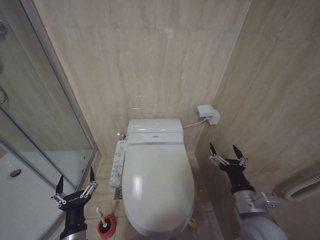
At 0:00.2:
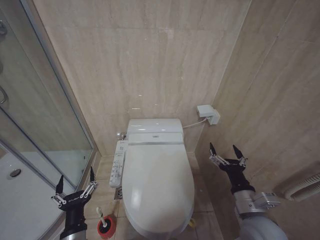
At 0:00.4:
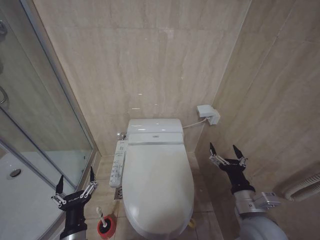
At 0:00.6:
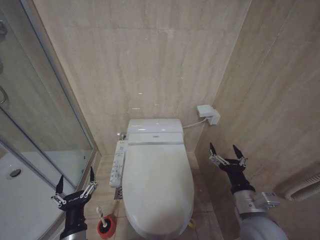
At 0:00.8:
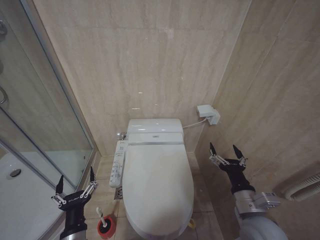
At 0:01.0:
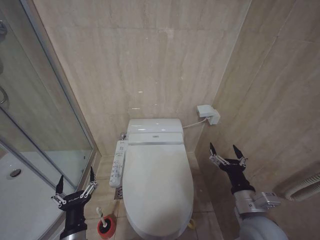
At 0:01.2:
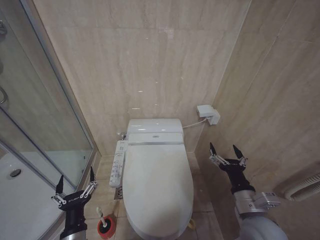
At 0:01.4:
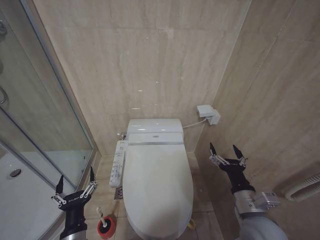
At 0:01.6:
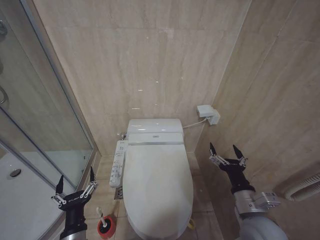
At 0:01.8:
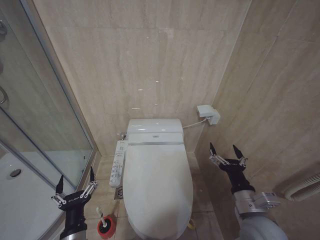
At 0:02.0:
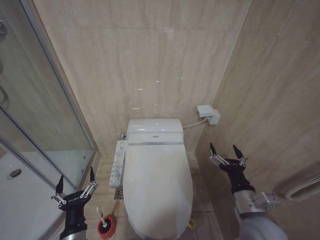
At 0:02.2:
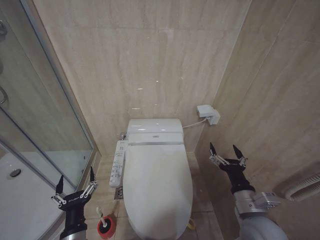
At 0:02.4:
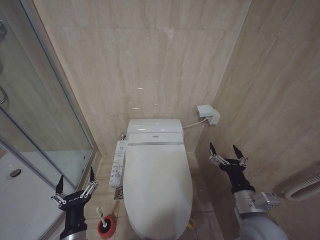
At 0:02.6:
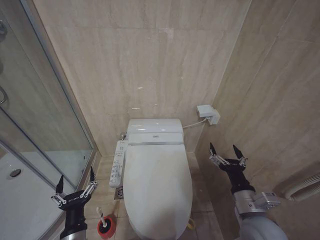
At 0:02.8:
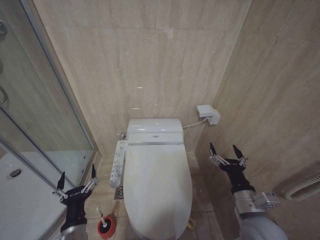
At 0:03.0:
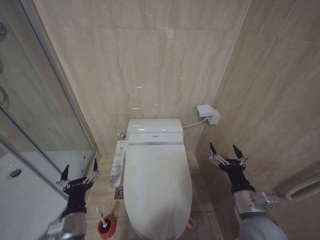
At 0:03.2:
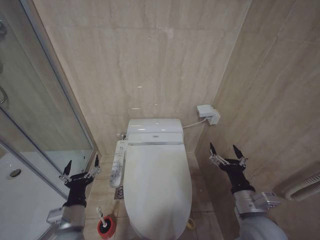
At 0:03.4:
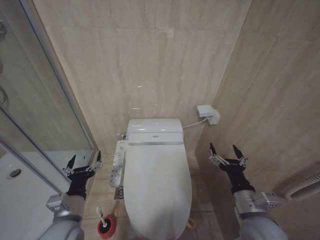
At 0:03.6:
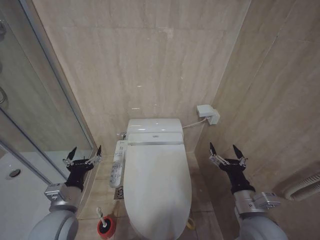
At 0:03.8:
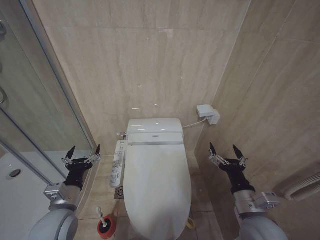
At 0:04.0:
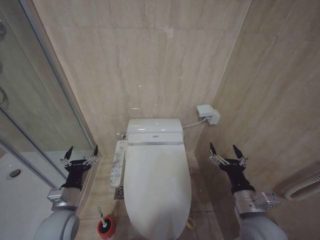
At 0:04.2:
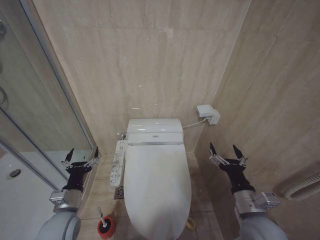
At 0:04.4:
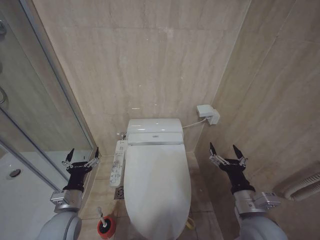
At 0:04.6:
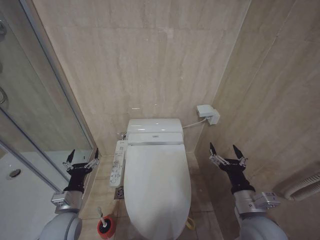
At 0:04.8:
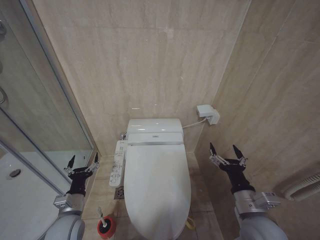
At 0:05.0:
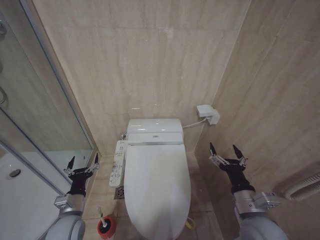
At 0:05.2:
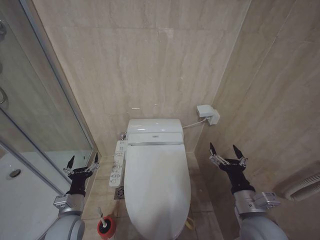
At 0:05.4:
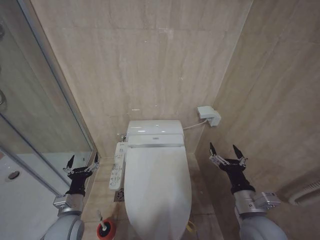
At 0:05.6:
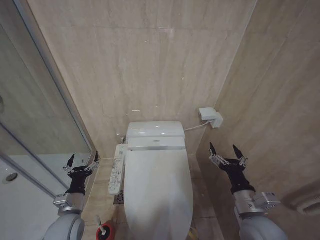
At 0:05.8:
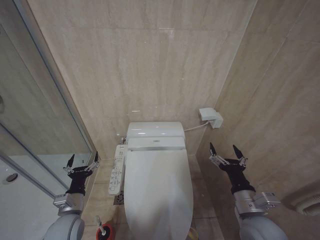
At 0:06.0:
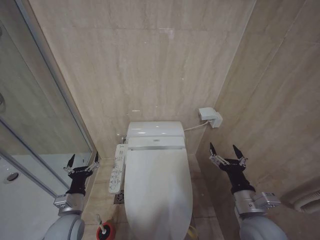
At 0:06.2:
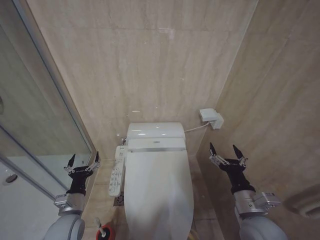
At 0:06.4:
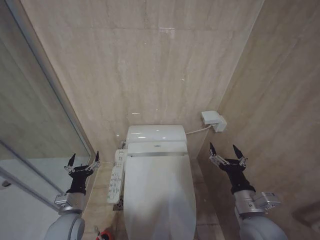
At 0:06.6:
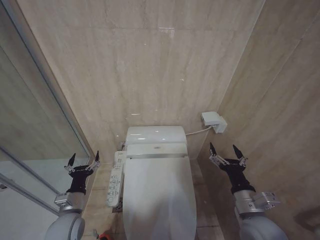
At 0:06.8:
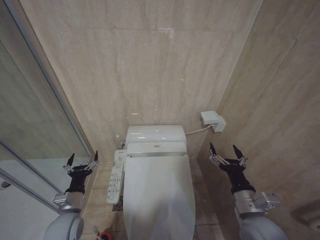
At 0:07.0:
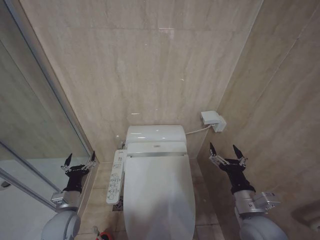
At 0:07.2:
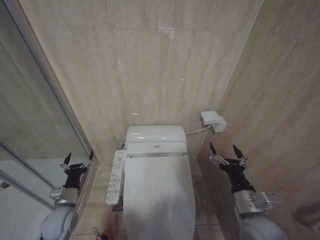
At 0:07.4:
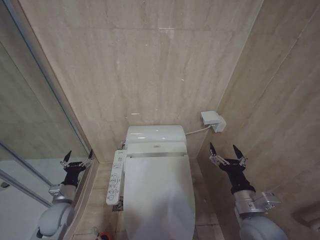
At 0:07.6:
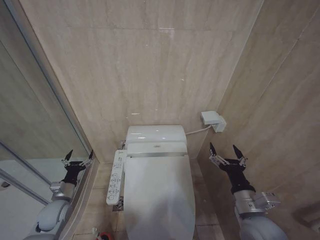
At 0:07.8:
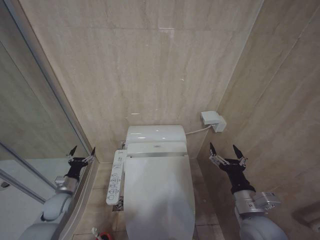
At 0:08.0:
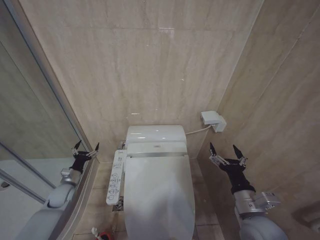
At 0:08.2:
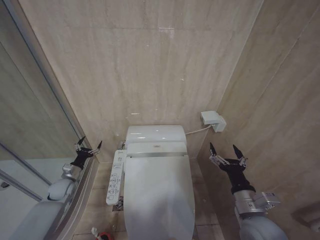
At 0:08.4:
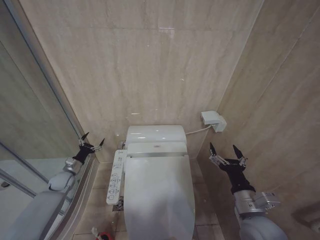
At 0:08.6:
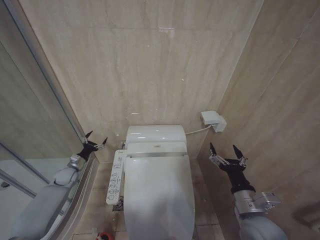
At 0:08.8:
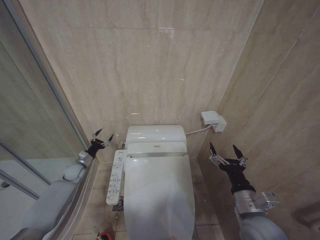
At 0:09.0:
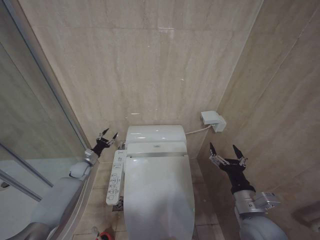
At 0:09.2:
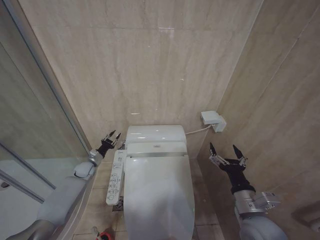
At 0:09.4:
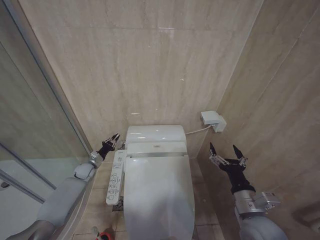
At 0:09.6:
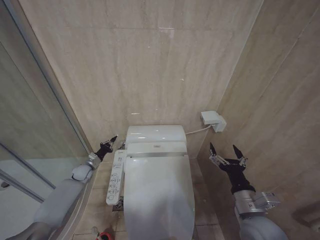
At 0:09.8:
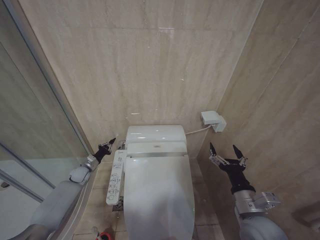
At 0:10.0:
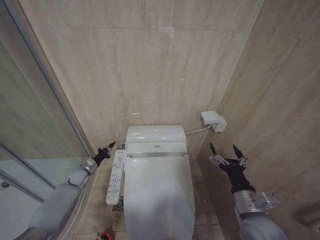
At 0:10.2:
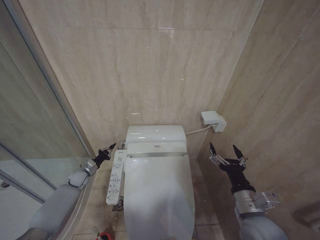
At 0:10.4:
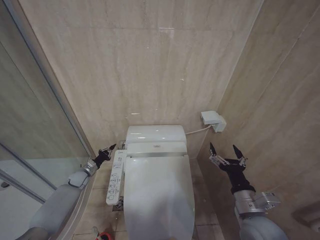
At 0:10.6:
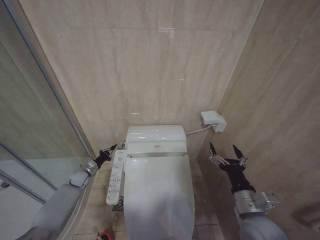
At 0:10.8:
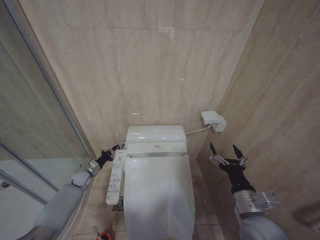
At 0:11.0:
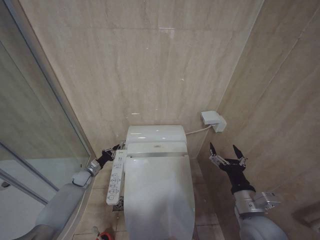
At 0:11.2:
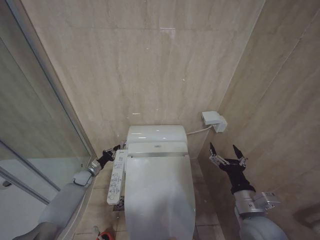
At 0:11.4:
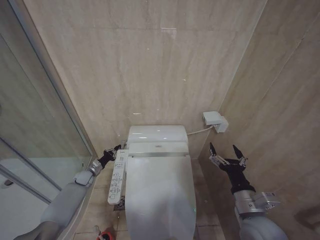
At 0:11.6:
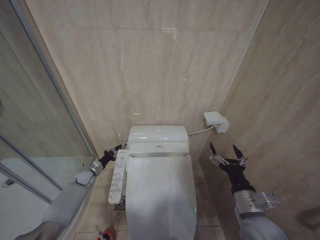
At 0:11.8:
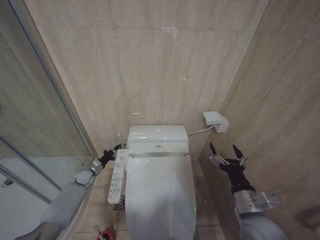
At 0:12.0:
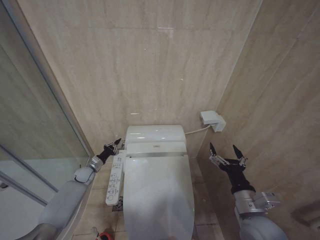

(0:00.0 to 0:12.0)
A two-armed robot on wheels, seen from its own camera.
Task of the whole recording: Open the toilet lid, clean the toilet bowl with a toilet brush, close the toilet lid, and flush.
0:00.0 - 0:01.6: Both grippers stay about where they are.
0:01.6 - 0:03.0: The grippers make only small movements.
0:03.0 - 0:04.4: The left gripper travels forward and to the left by roughly 10 cm.
0:04.4 - 0:06.0: The grippers make only small movements.
0:06.0 - 0:07.6: The left gripper moves to the left and forward, approximately 10 cm.
0:07.6 - 0:09.0: The left gripper is displaced forward by about 20 cm.
0:09.0 - 0:10.4: The left gripper ends up approximately 5 cm from where it was, and closes up.
0:10.4 - 0:12.0: There are only small adjustments of the grippers.

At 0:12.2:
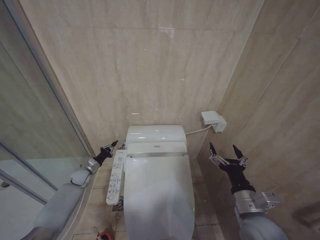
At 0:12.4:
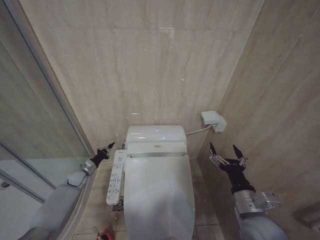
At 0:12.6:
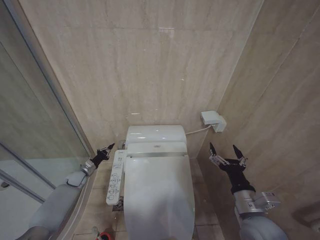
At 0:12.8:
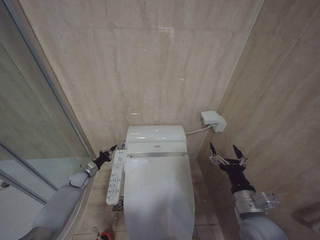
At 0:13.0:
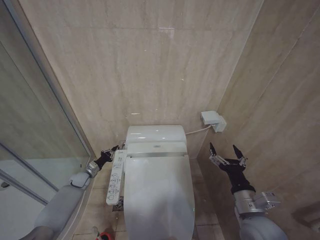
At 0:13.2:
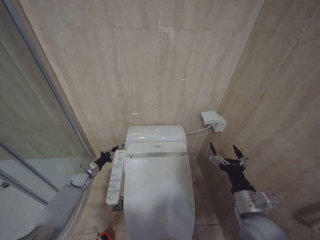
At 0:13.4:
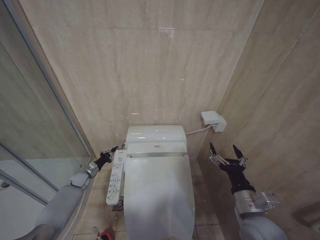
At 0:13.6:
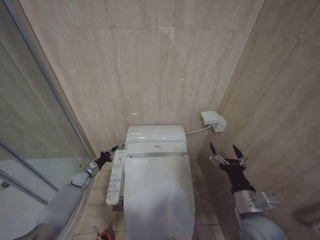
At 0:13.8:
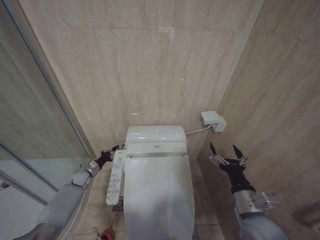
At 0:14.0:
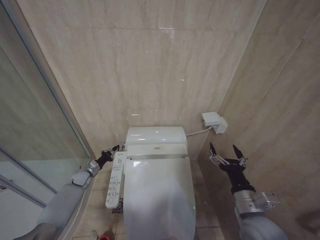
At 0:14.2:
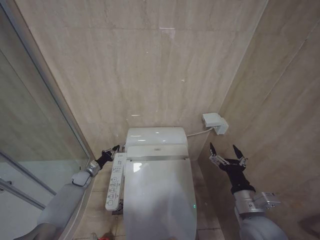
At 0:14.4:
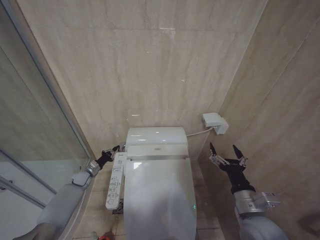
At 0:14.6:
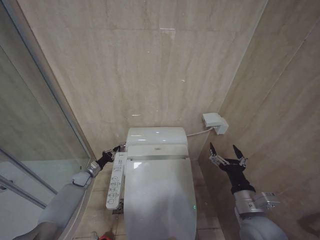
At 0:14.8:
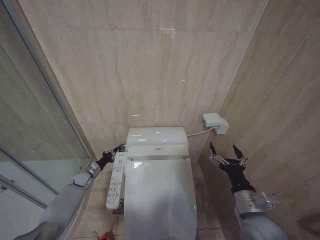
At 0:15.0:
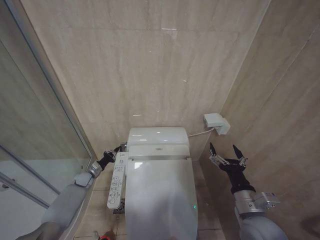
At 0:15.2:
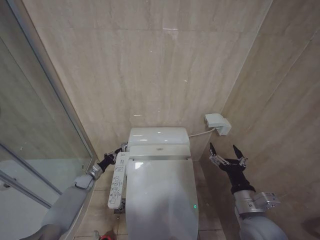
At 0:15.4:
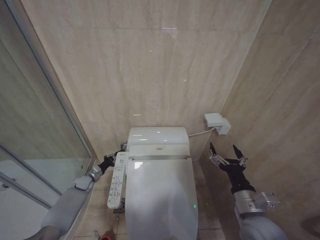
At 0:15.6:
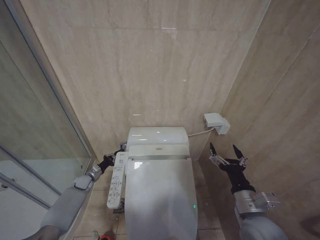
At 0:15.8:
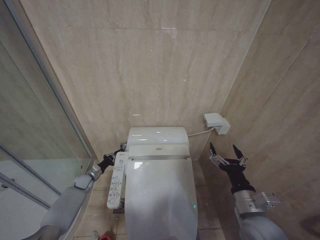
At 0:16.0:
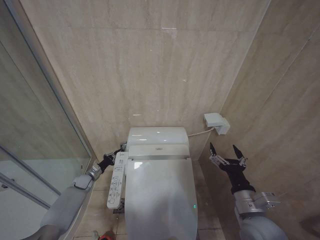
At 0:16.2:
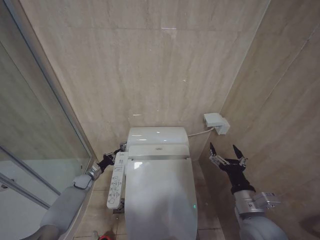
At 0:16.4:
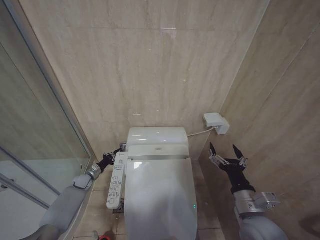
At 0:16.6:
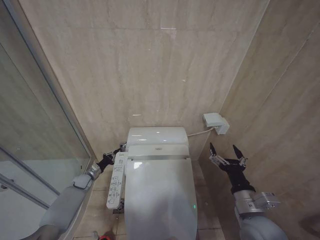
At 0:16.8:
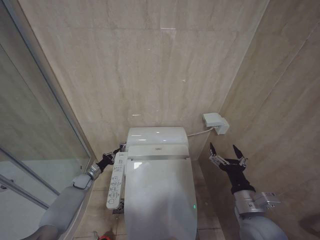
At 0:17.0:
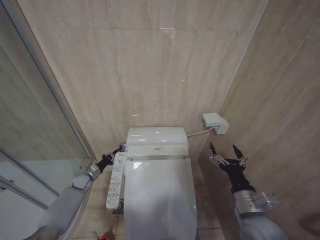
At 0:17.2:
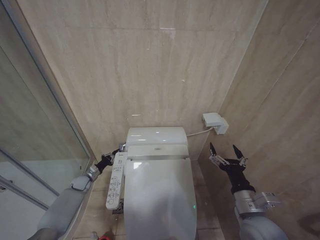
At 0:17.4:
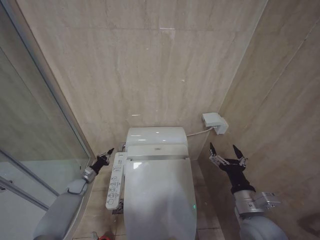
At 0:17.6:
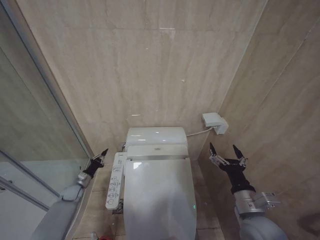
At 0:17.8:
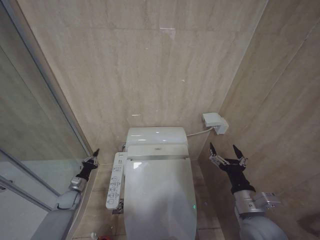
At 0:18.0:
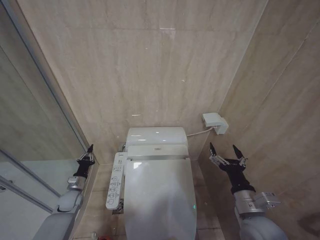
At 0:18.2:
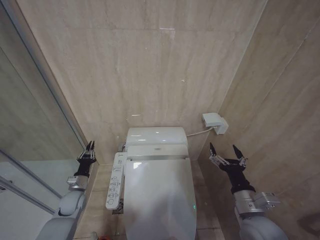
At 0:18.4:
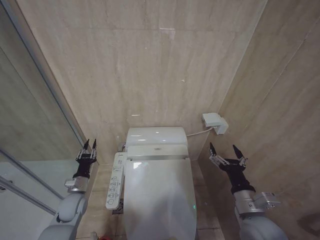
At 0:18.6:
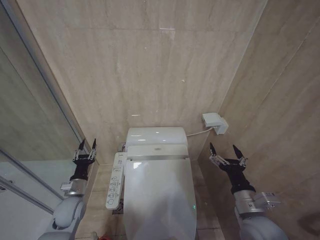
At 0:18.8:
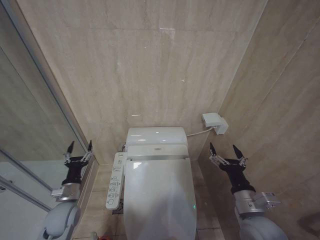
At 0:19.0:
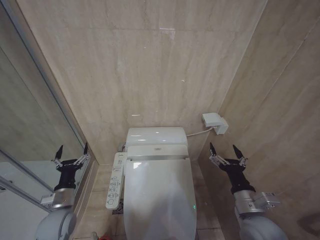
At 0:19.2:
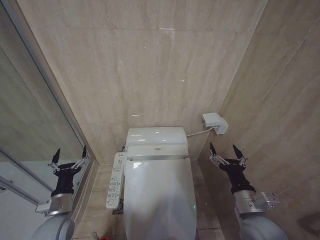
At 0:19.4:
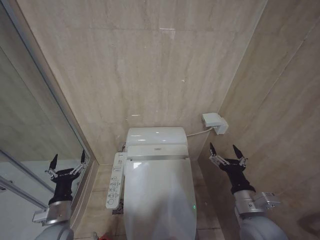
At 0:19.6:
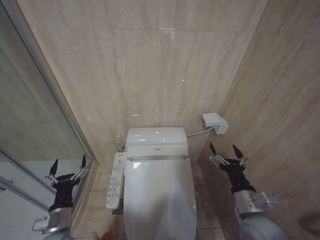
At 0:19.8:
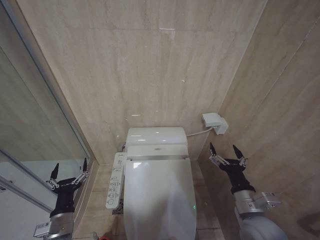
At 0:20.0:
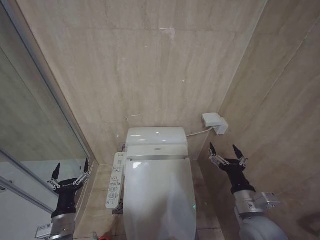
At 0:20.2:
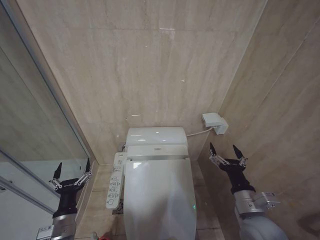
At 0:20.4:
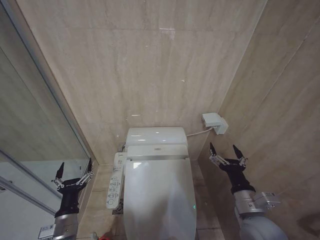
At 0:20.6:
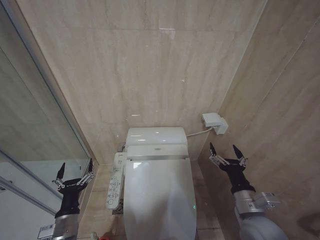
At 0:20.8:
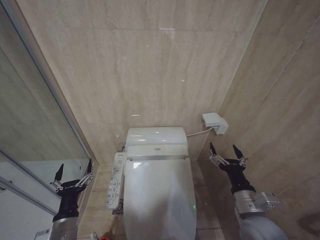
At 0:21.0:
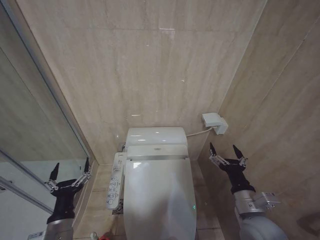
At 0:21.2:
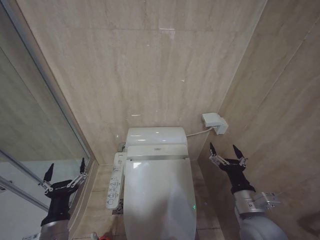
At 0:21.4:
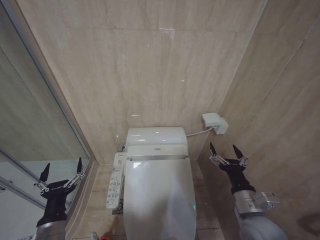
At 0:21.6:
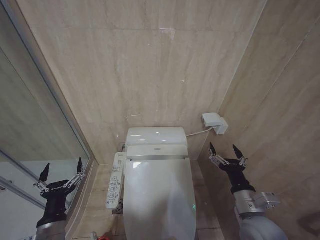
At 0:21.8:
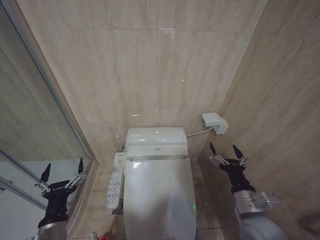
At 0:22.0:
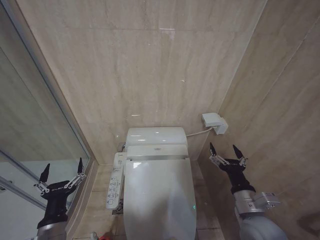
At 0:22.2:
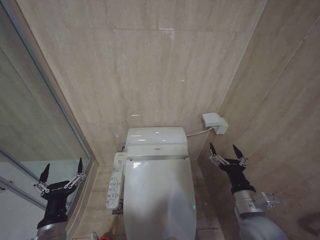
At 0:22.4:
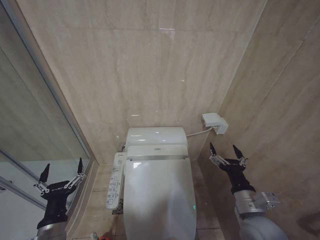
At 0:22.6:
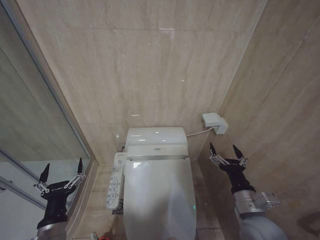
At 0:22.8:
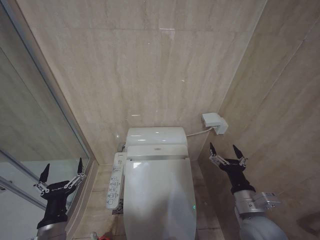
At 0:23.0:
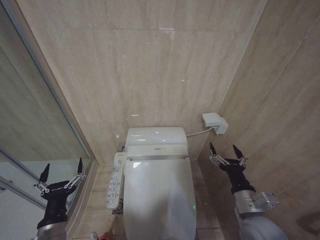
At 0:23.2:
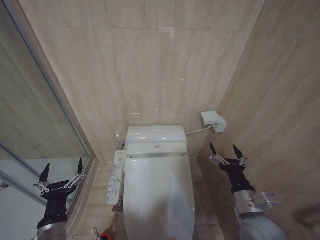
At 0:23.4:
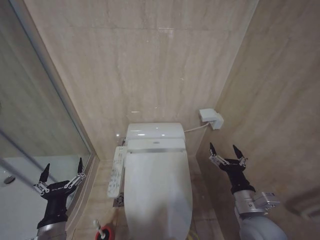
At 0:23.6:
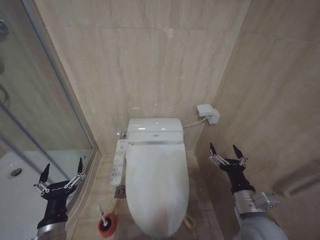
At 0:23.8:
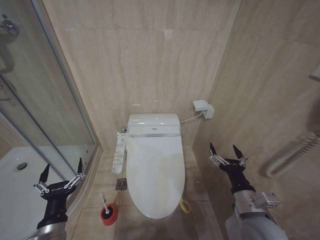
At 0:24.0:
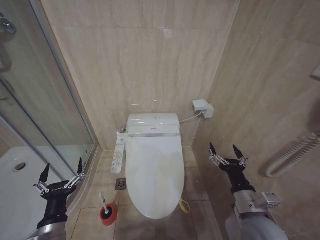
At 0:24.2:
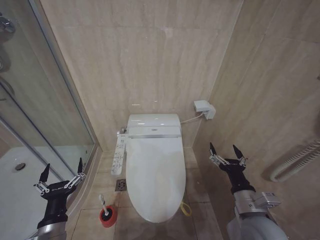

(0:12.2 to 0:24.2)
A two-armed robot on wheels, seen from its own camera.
Task of the whole recording: Open the toilet lid, clean the toilet bowl with a toilet brush, close the toilet lid, and flush.
0:13.8 - 0:15.2: The grippers stay close to where they were, moving slightly.
0:15.2 - 0:16.6: Neither gripper changes place.
0:16.6 - 0:18.2: The left gripper shifts roughly 10 cm backward.
0:18.2 - 0:19.8: The left gripper moves backward and upward, roughly 20 cm, and opens up.
0:19.8 - 0:21.2: The left gripper ends up some 5 cm from where it was.
0:21.2 - 0:24.2: The two grippers keep their place.
